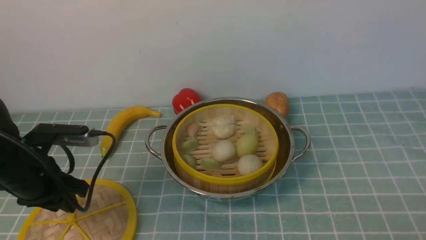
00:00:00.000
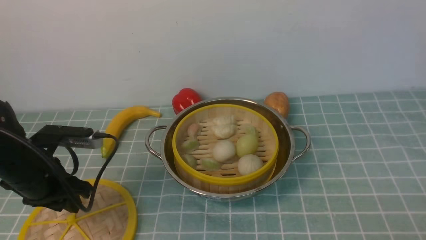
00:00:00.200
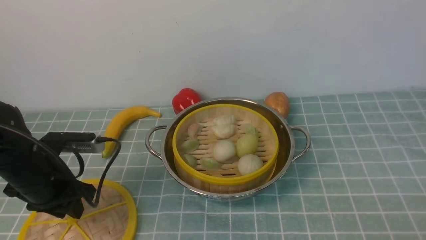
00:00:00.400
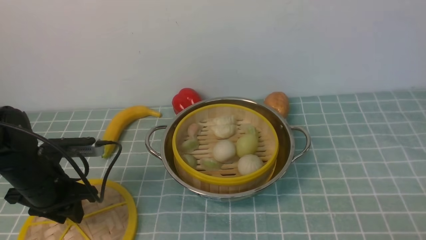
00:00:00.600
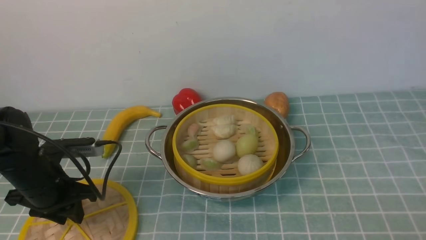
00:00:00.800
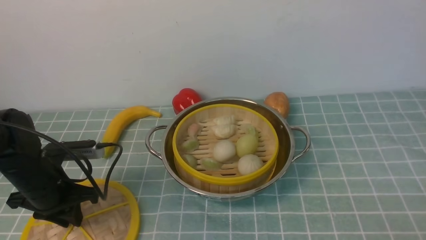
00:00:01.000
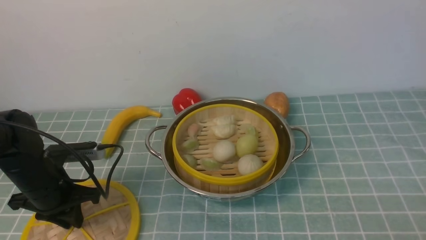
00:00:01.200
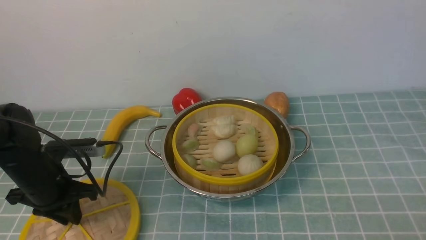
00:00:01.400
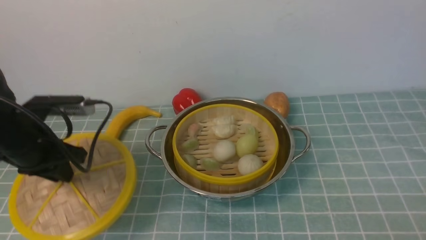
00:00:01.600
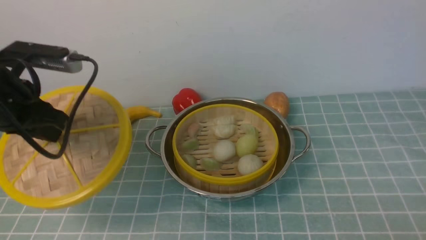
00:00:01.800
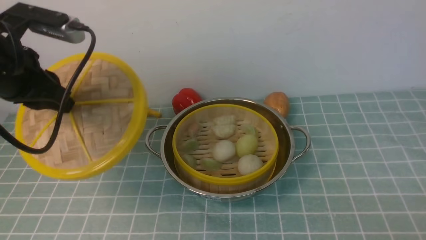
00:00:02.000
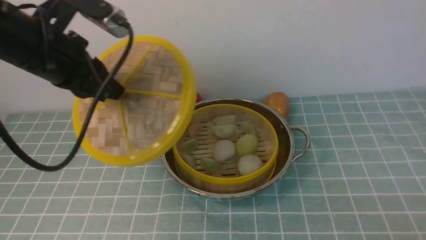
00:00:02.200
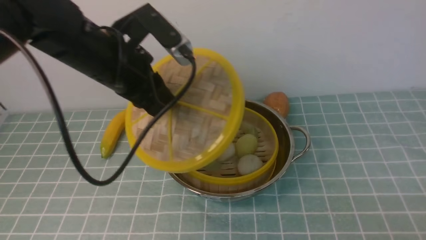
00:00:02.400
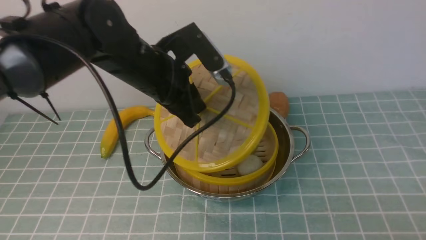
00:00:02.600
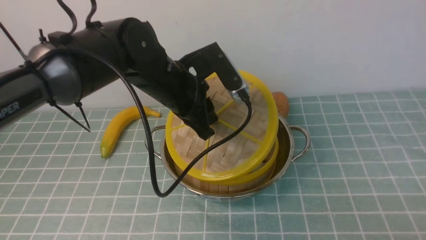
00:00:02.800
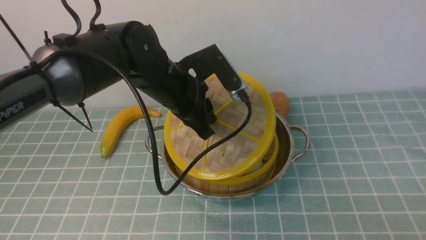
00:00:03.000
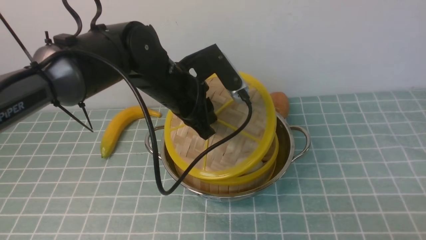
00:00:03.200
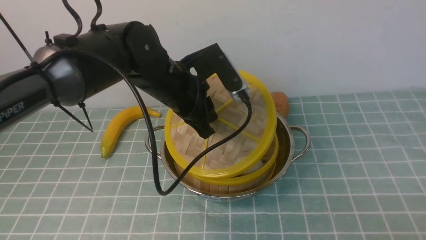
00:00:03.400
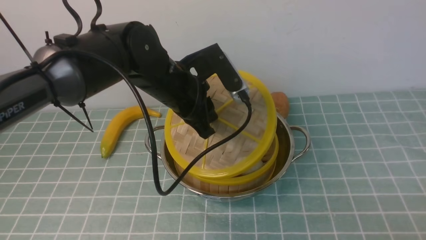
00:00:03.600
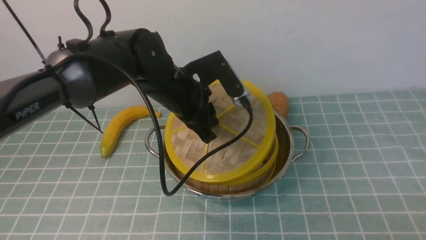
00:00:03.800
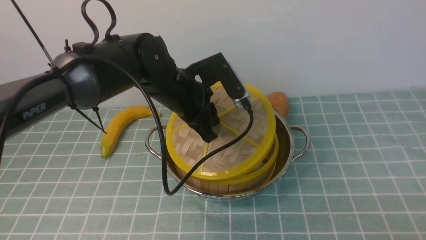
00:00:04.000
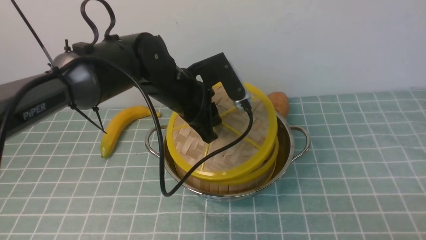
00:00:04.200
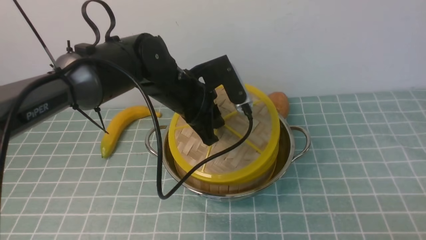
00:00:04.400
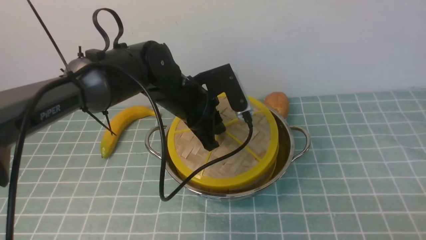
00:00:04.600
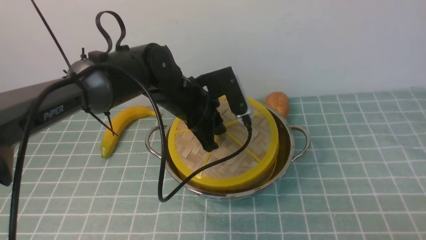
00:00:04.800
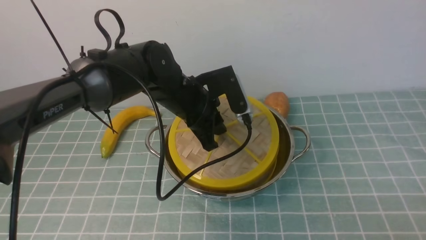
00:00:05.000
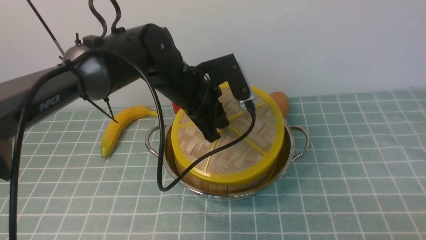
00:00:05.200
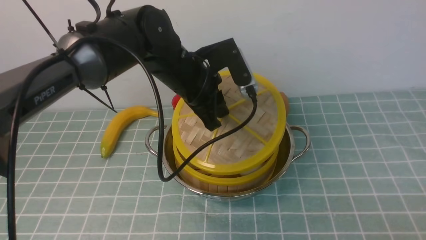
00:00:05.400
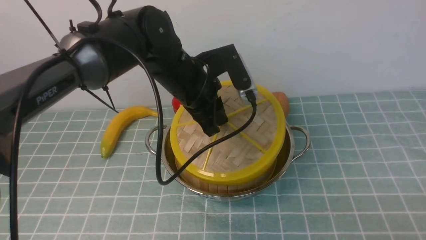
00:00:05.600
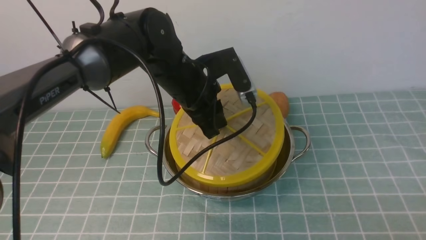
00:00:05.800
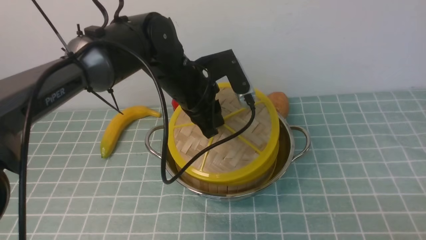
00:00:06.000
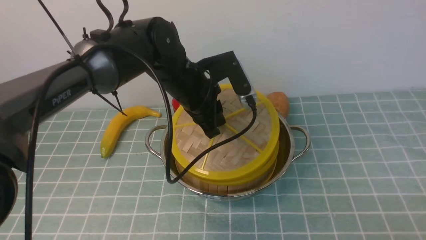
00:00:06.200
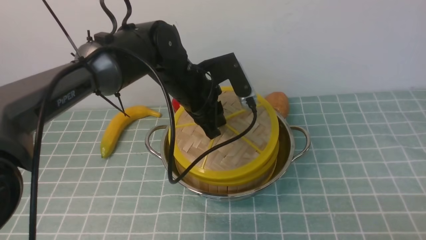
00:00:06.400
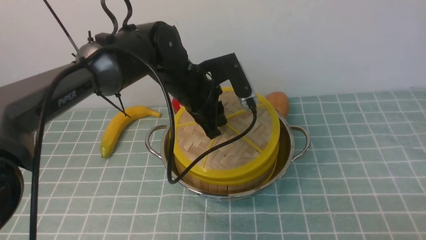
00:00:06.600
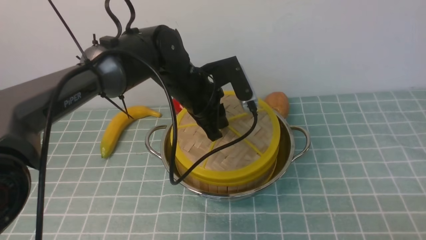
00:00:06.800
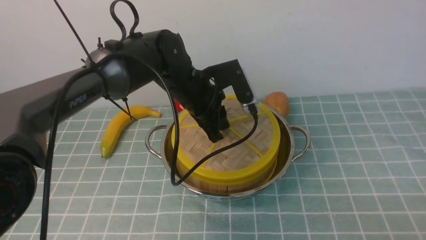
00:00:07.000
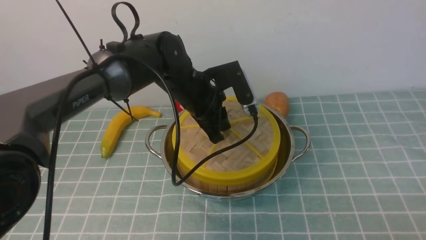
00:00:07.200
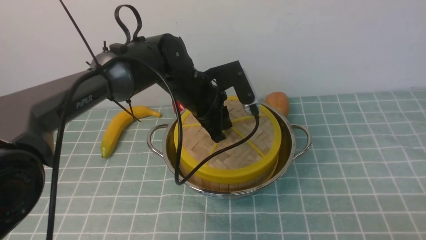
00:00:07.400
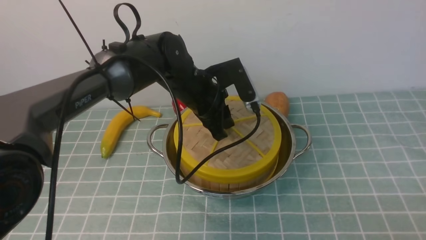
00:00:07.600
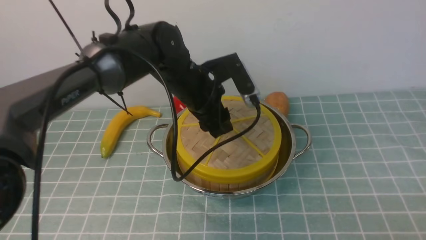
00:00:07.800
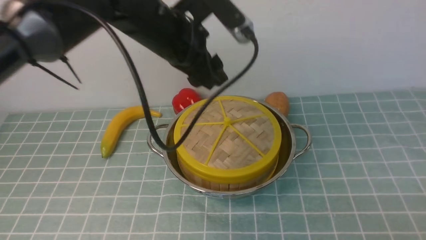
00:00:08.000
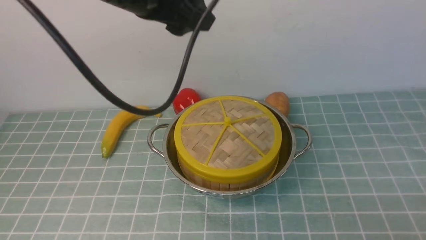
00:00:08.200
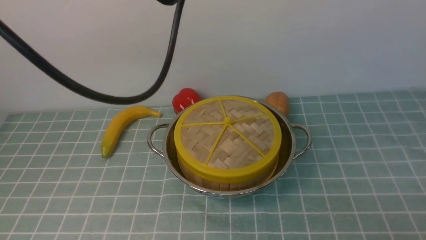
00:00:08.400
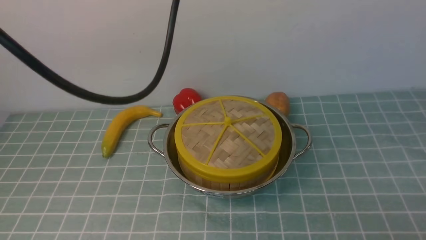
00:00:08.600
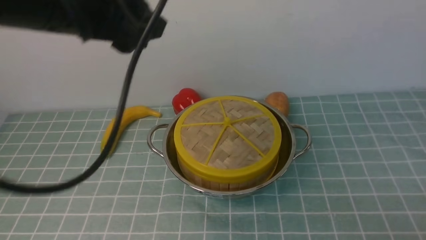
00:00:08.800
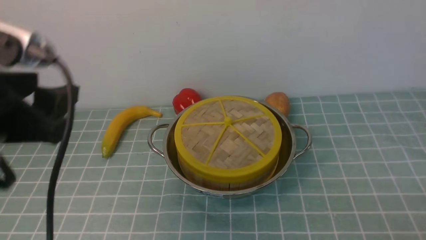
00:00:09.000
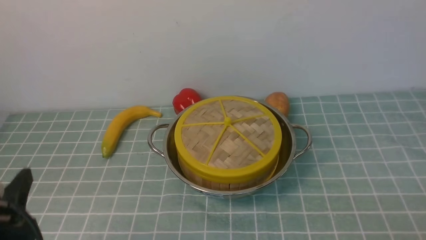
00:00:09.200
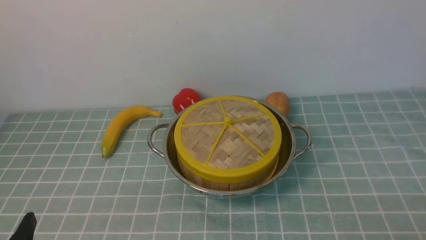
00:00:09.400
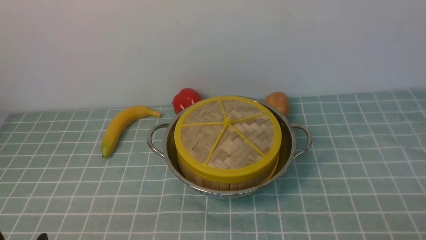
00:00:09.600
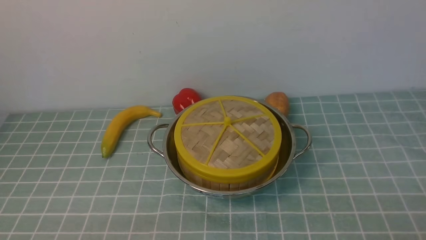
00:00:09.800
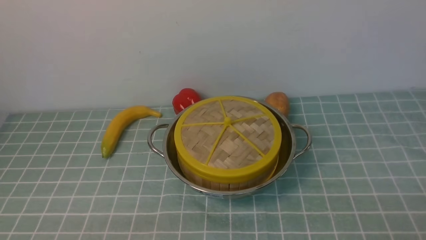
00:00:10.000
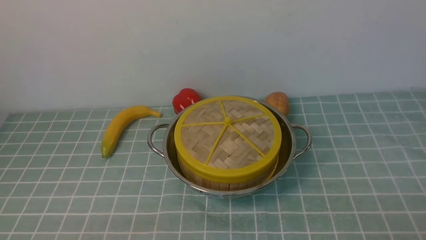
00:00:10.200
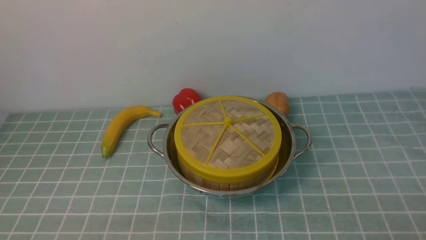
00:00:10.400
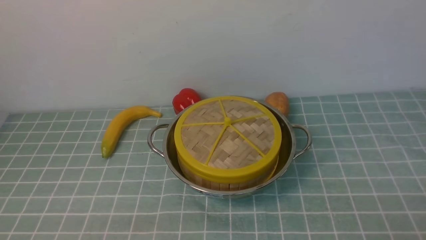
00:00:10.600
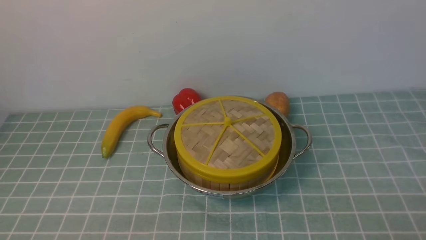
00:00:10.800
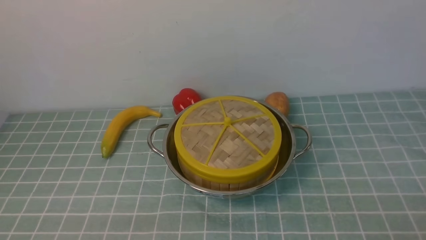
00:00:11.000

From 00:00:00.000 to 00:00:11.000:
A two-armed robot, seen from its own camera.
Task of the whole recording: place the steamer in the pot on the blue tablecloth, and put the lid on the steamer.
Step, from 00:00:00.000 to 00:00:02.000: use the left arm to lift the lid of the steamer.
Step, from 00:00:02.200 to 00:00:08.200: use the left arm to place the steamer lid on the steamer.
From 00:00:00.000 to 00:00:01.600: The left gripper moves approximately 5 cm.
From 00:00:01.600 to 00:00:03.200: The left gripper goes about 20 cm to the right.
From 00:00:03.200 to 00:00:06.200: The grippers make only small movements.
From 00:00:06.200 to 00:00:07.800: The left gripper opens its fingers.
From 00:00:07.800 to 00:00:09.400: The left gripper moves backward and to the left, about 40 cm.

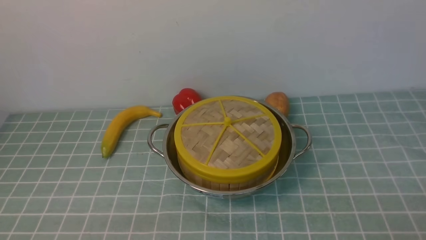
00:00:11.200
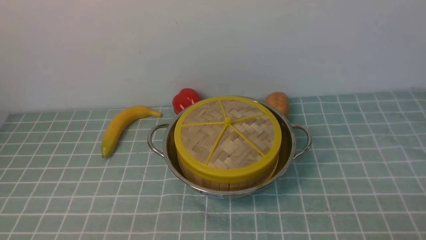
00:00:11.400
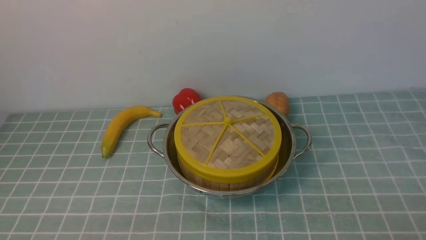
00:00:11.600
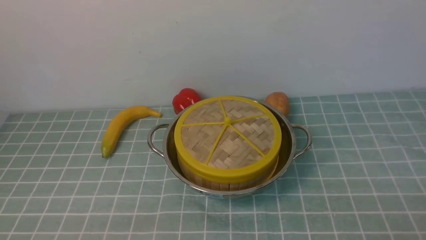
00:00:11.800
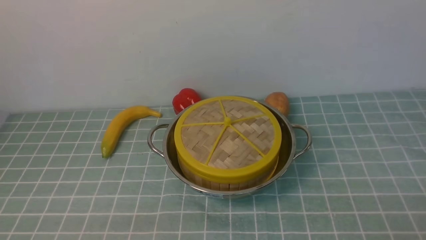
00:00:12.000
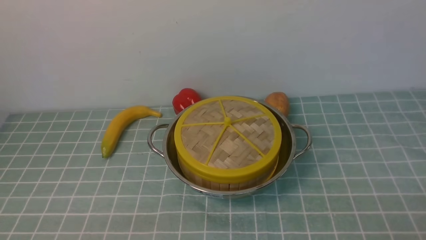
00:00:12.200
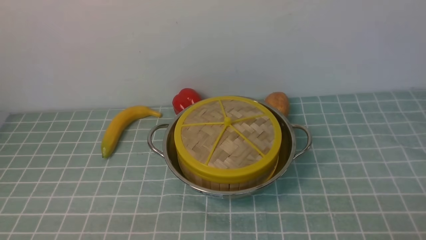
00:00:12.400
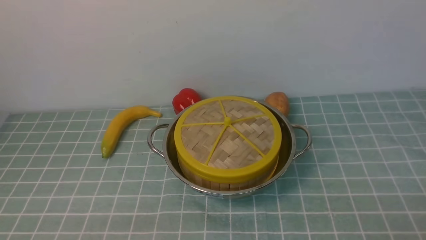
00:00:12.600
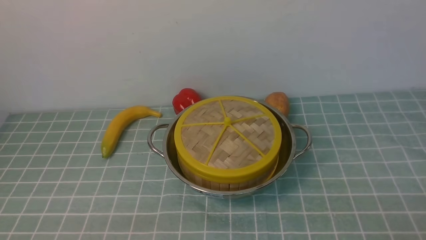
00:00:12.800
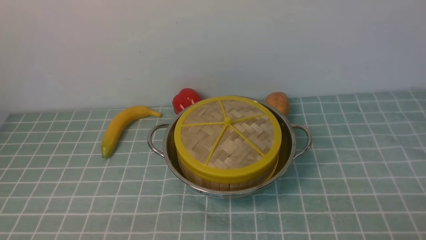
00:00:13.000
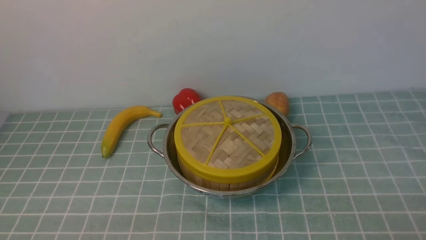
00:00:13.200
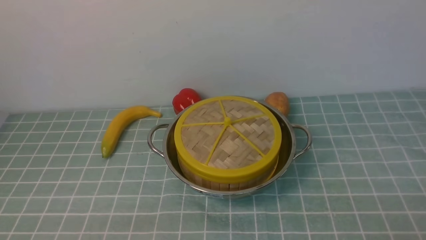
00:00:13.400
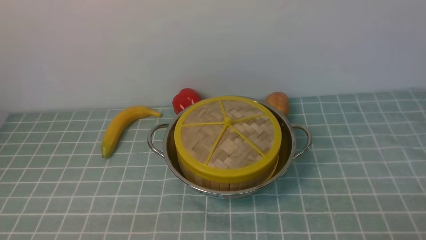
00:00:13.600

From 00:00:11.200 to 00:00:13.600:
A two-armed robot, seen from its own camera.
Task of the whole recording: place the steamer in the pot on the blue tablecloth, and put the lid on the steamer.
From 00:00:11.200 to 00:00:13.600: The two grippers keep their place.
